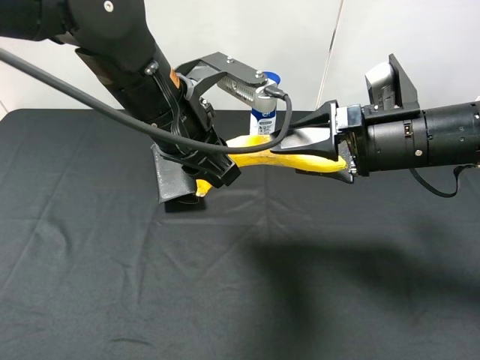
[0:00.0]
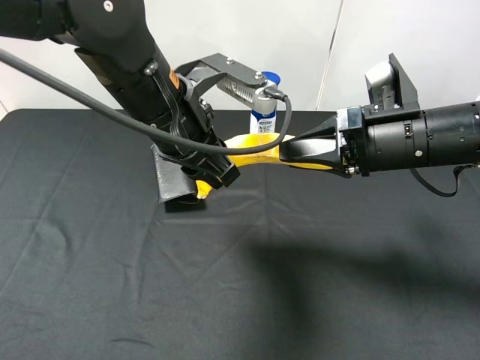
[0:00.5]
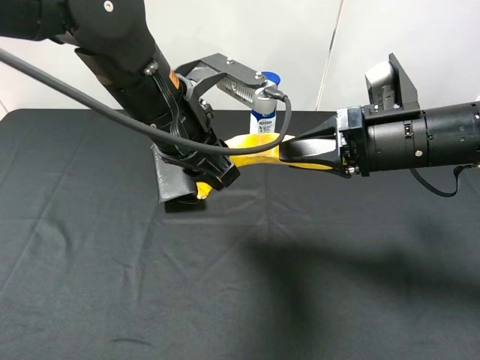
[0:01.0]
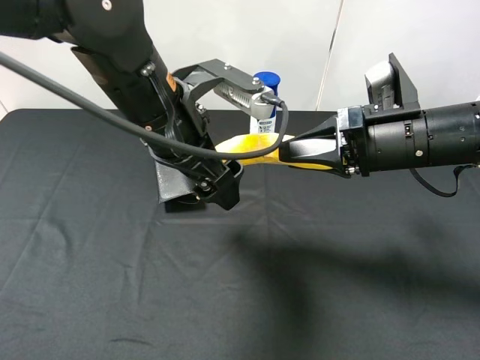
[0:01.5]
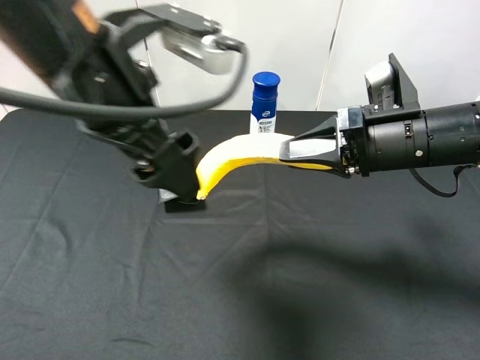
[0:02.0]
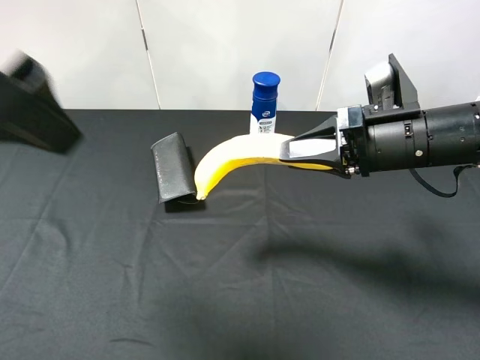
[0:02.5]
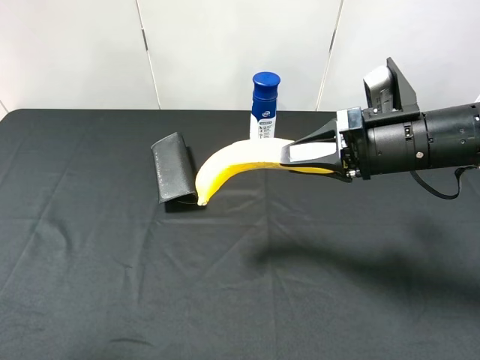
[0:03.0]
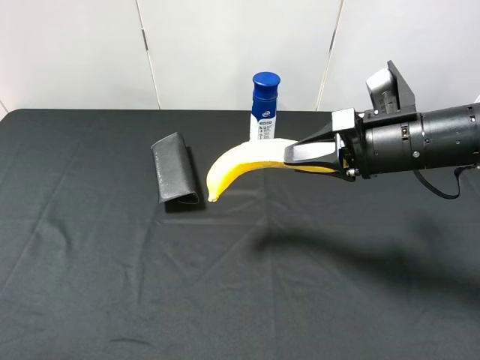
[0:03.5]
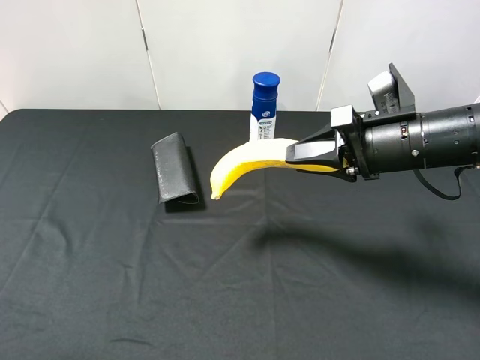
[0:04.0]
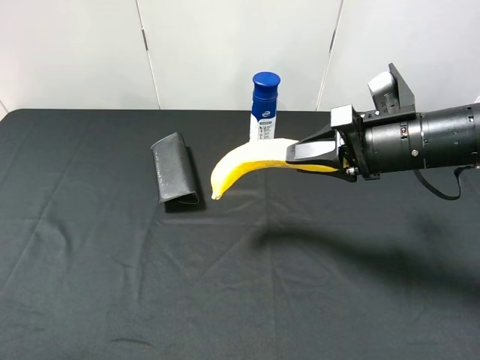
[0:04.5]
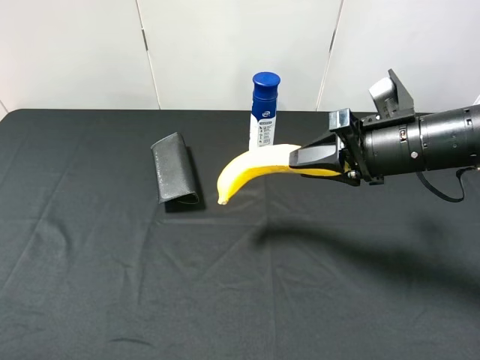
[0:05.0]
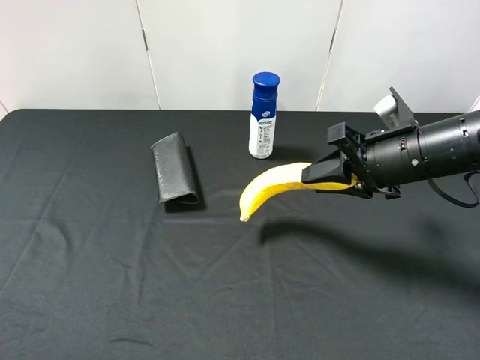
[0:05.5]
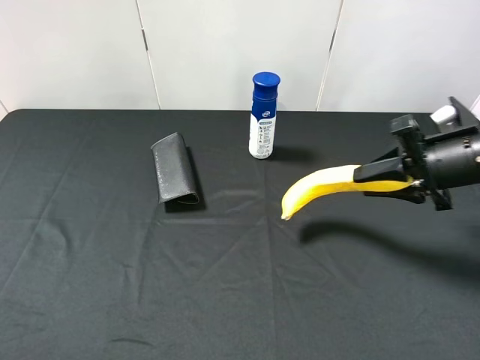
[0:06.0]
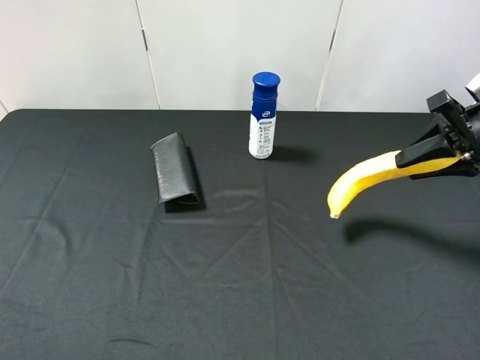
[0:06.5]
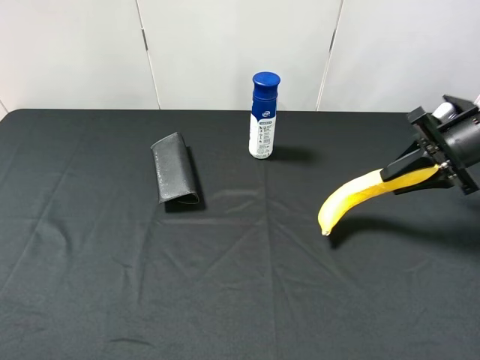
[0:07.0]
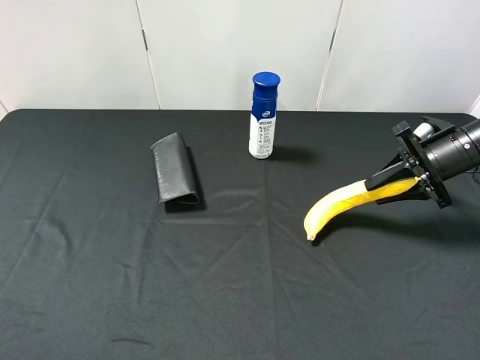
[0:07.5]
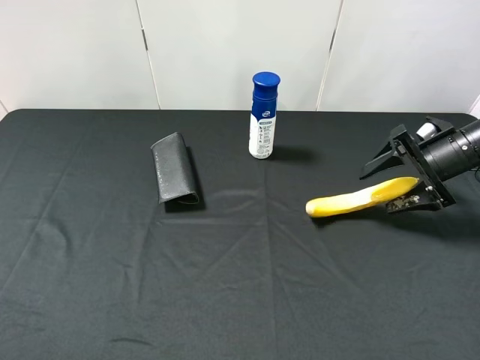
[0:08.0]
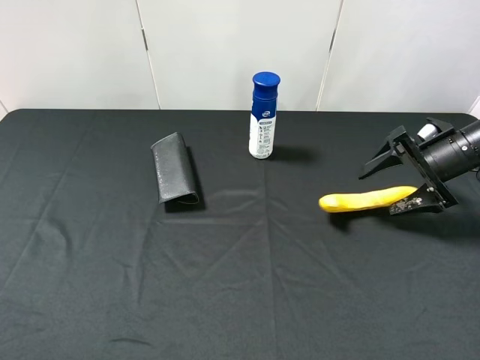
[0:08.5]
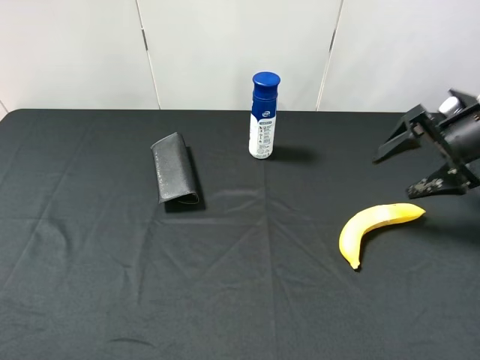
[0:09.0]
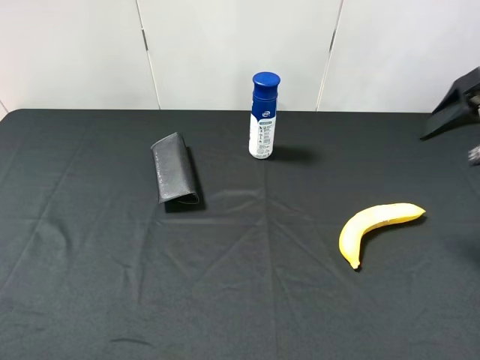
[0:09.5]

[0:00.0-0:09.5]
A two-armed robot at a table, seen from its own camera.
Task of the whole recording: use the left gripper to pick up the item and transfer it from the left gripper to the right gripper.
0:00.0 to 0:02.0: The right gripper closes its fingers, while the left gripper shifts roughly 5 cm upward, and opens.
0:02.0 to 0:04.0: The left gripper travels to the left and backward by about 30 cm.
0:05.5 to 0:07.5: The right gripper moves to the right and forward, roughly 15 cm.
0:07.5 to 0:09.5: The right gripper goes approximately 15 cm upward and backward, and opens its fingers.

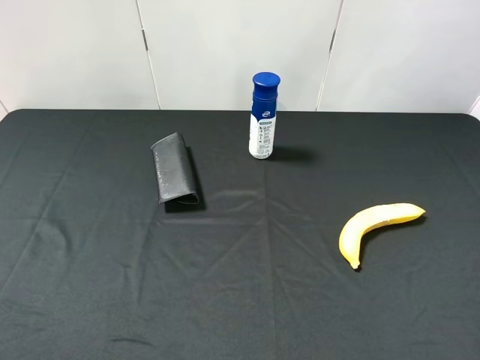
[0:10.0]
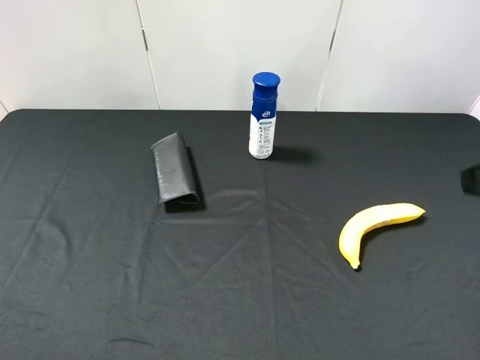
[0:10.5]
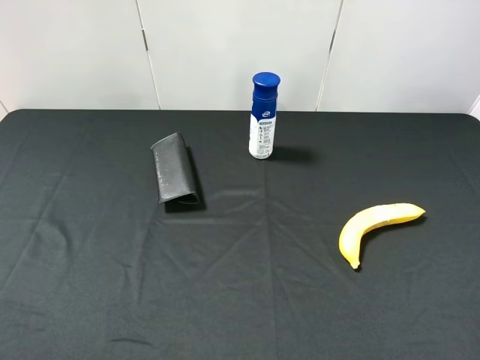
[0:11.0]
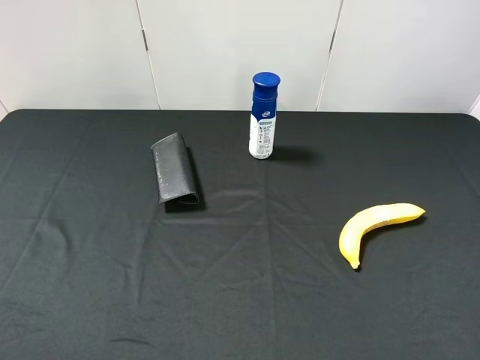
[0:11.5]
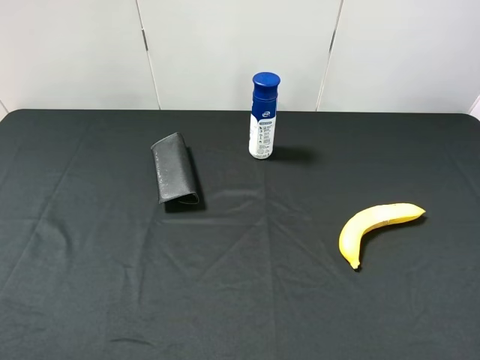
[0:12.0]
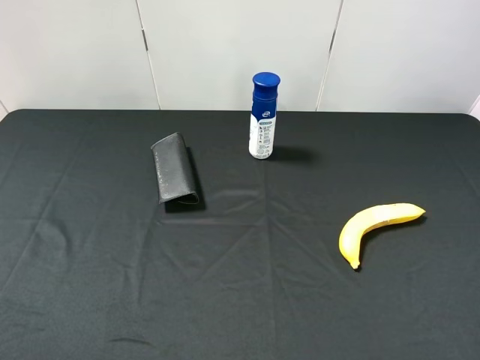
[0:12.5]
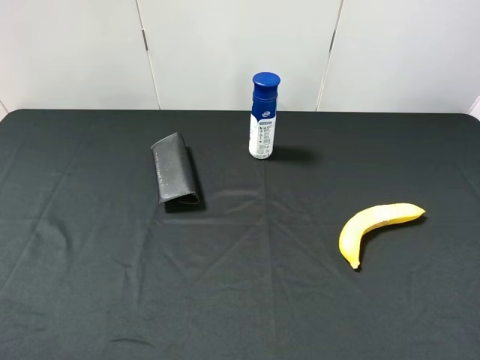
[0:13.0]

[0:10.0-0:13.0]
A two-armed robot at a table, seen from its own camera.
Task of the whole recording: use the left gripper to pick up the item and transfer it from the left gripper to the right gripper.
0:11.5 to 0:13.0: The two grippers keep their place.

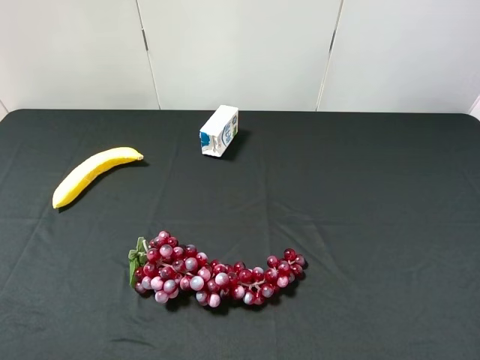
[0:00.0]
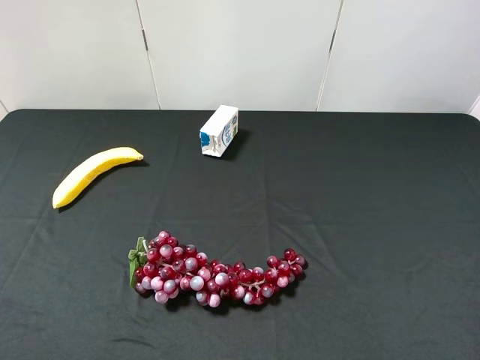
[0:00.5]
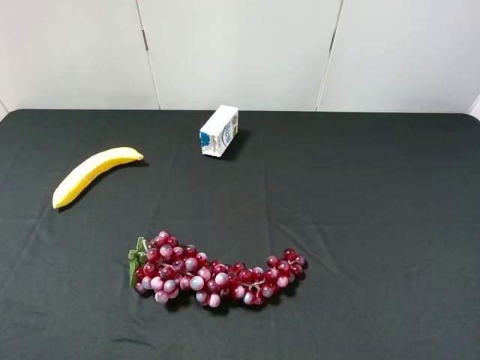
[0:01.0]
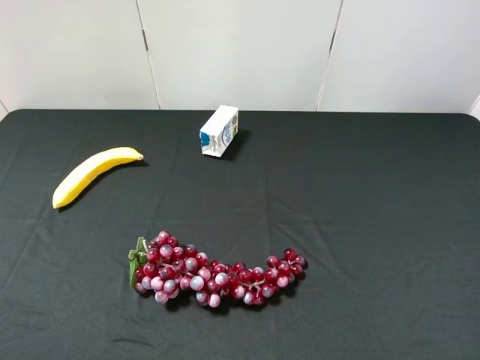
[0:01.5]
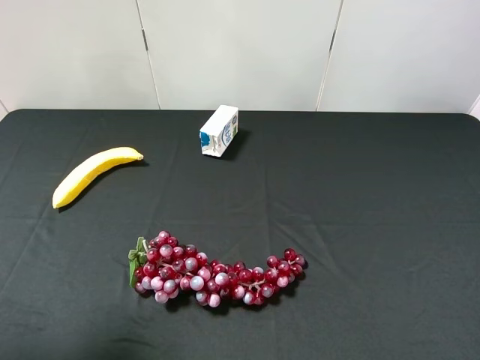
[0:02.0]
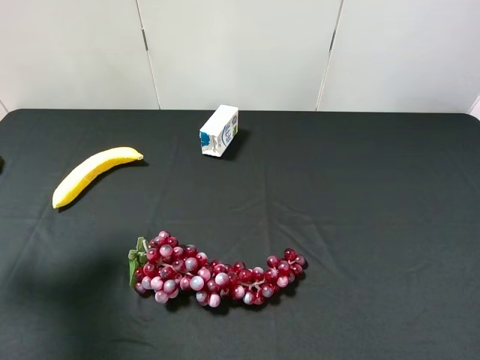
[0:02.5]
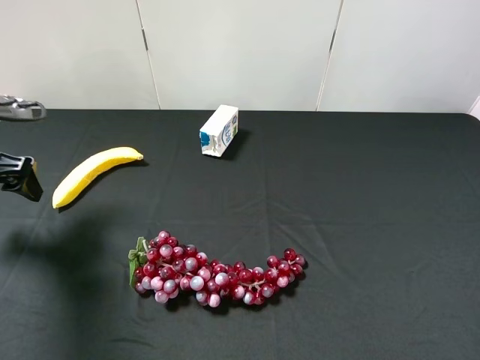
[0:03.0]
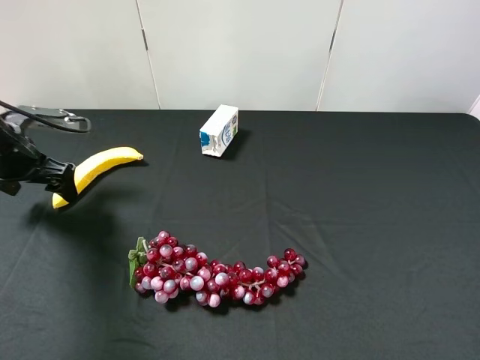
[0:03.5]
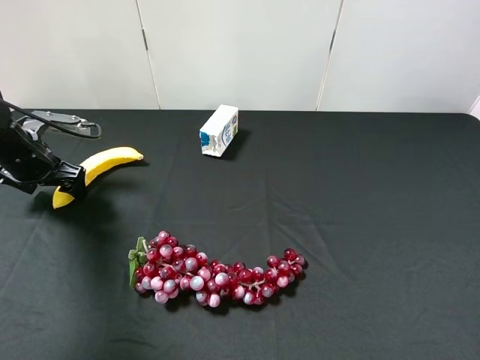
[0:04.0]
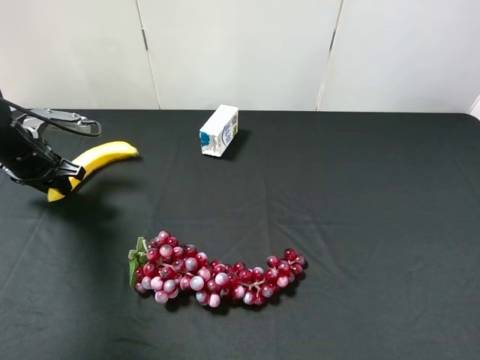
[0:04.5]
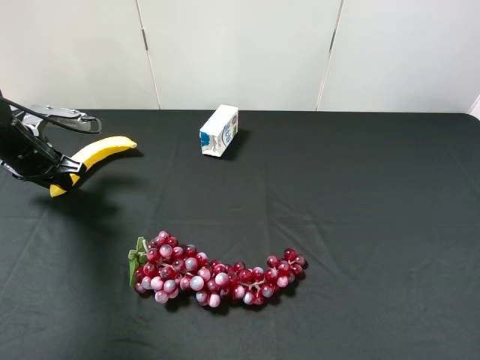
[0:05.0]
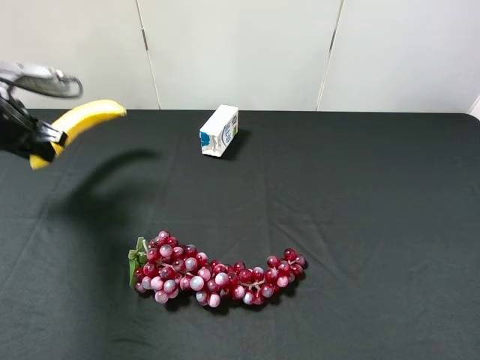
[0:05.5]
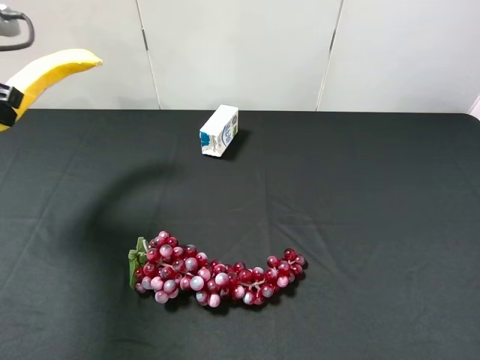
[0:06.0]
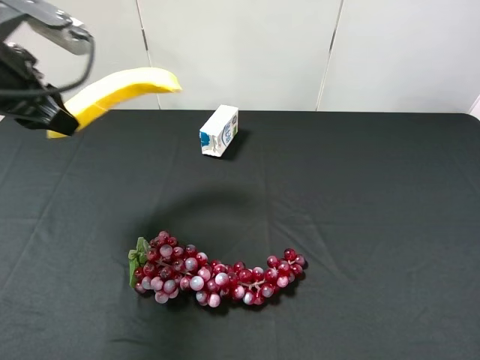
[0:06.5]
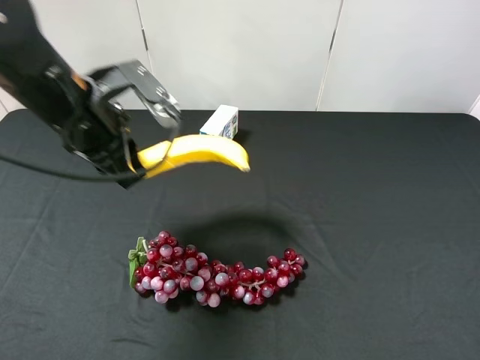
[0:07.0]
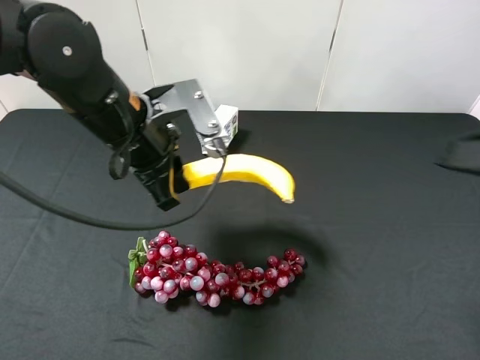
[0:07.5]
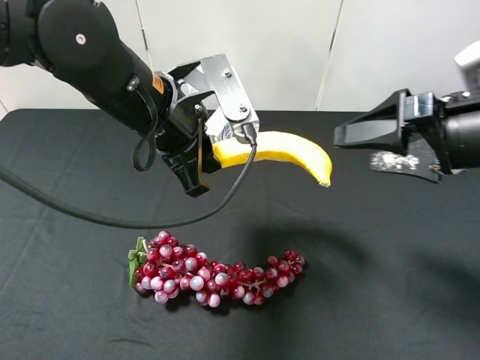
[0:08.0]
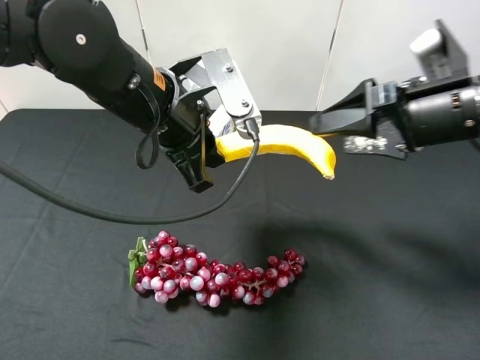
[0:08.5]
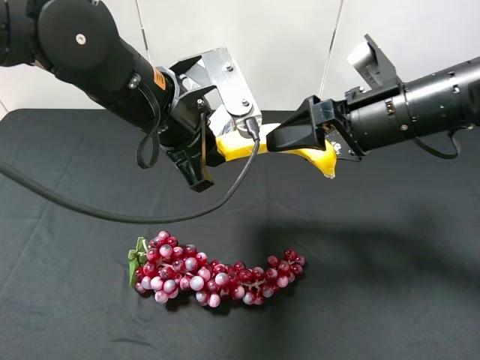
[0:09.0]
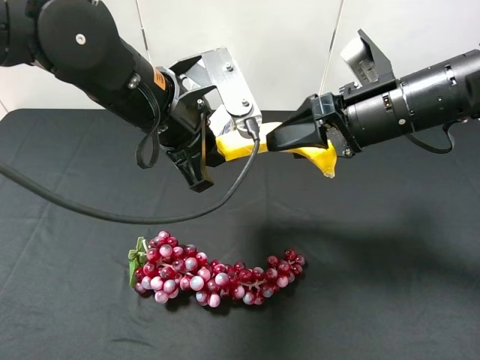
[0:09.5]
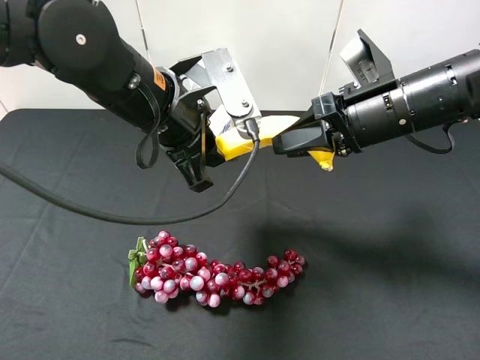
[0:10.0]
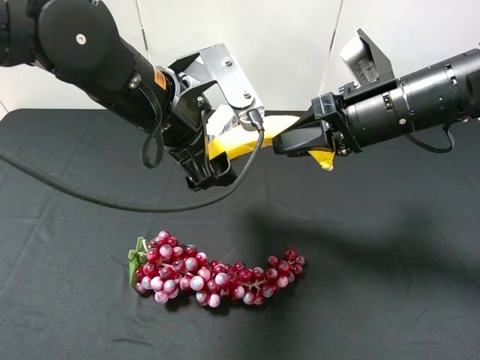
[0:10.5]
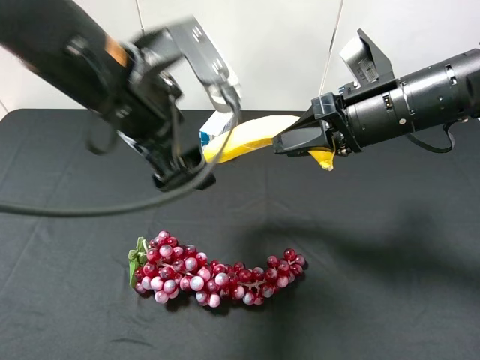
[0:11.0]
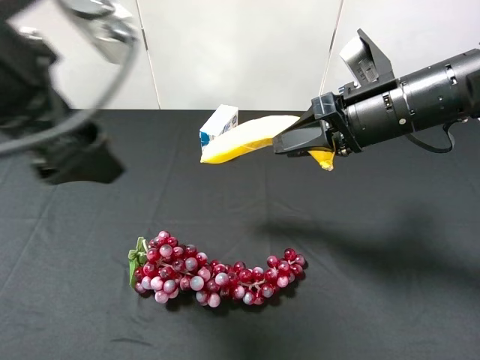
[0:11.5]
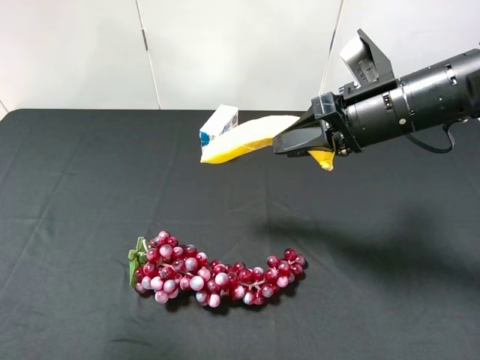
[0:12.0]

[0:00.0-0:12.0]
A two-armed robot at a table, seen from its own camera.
Task of the whole recording: use the left gripper to pick up the item and transfer it from the left gripper to the right gripper.
0:00.0 to 0:02.0: The left gripper heads forward, covering approximately 10 cm.
0:02.0 to 0:04.0: The left gripper travels forward and downward by some 30 cm.
0:04.0 to 0:06.0: The left gripper shifts roughly 15 cm upward, and closes.
0:06.0 to 0:08.0: The left gripper is displaced to the right by approximately 25 cm, while the right gripper shifts roughly 20 cm forward.
0:08.0 to 0:10.0: The right gripper moves to the left and forward, about 10 cm, and closes its fingers.
0:10.0 to 0:12.0: The left gripper is displaced to the left, backward and upward by some 25 cm, and opens.

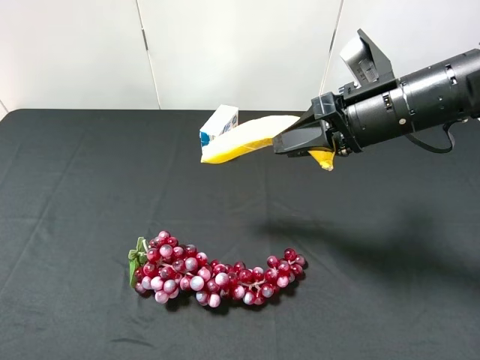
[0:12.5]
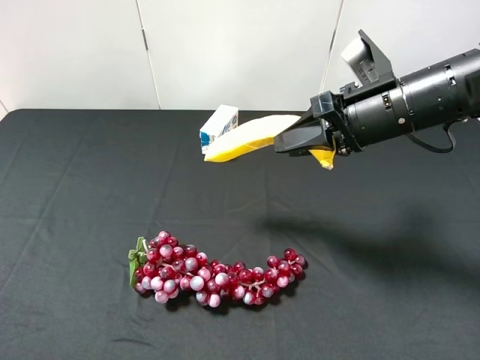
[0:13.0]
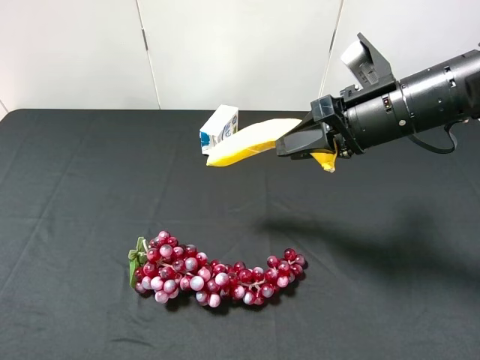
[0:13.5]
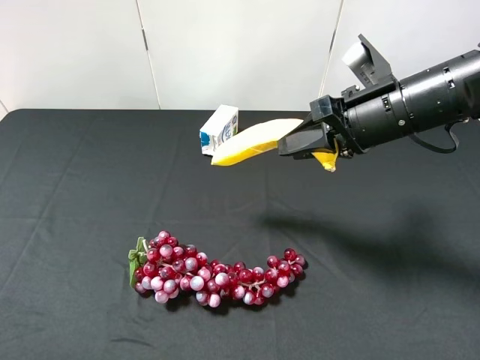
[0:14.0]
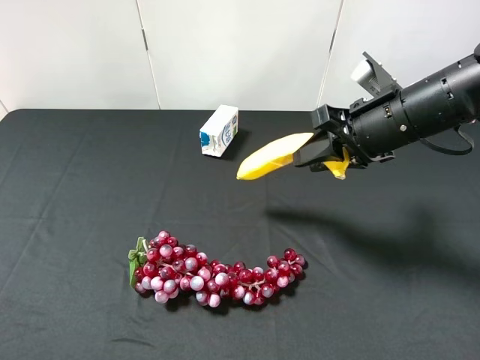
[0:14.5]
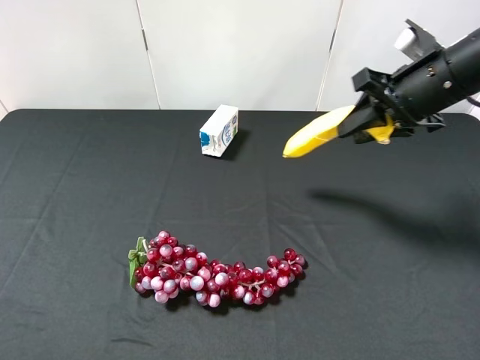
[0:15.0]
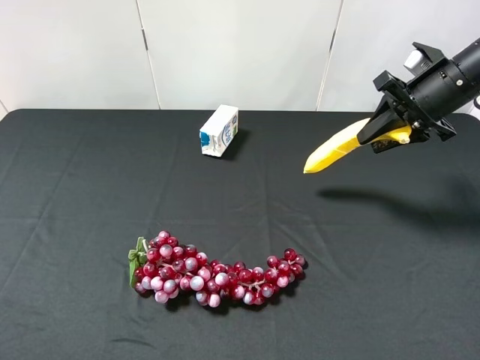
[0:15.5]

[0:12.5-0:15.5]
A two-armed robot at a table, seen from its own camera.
Task of the whole recording: use the left gripper to pick up the item and transfer it from the left gripper to the right gripper.
0:12.5 to 0:14.0: There are only small adjustments of the grippers.
0:14.0 to 0:15.5: The right gripper is displaced to the right and forward by some 15 cm.
